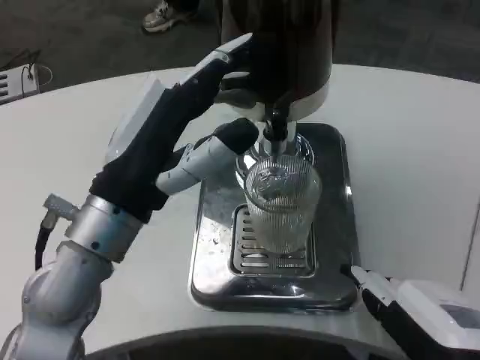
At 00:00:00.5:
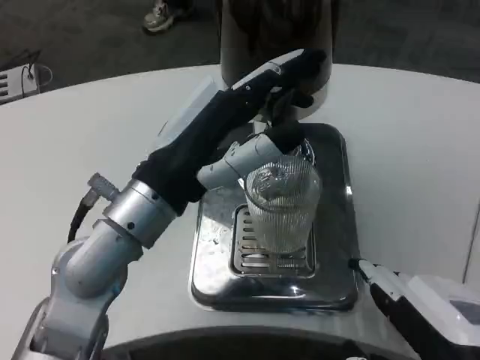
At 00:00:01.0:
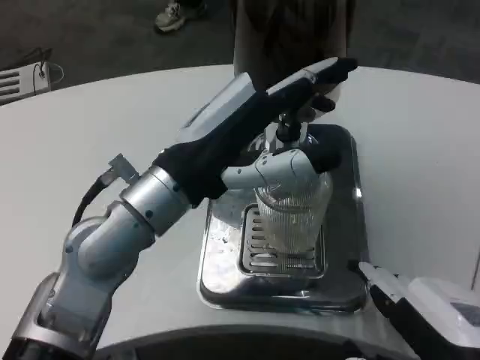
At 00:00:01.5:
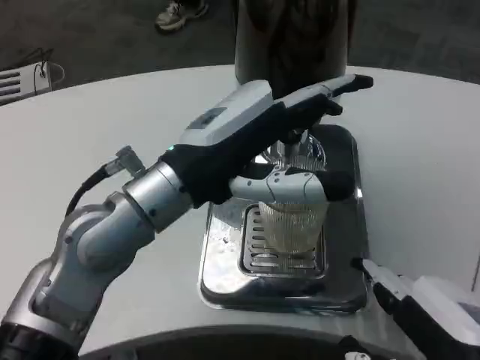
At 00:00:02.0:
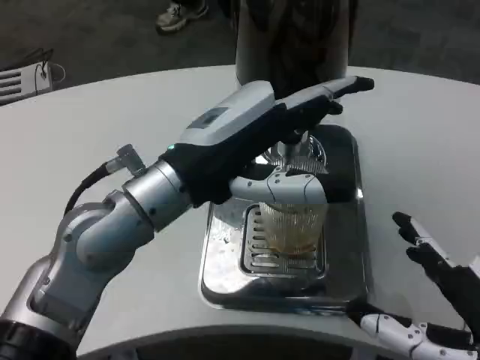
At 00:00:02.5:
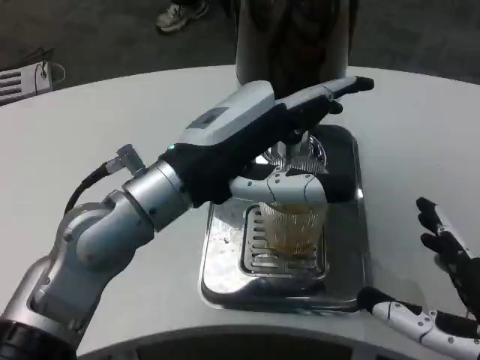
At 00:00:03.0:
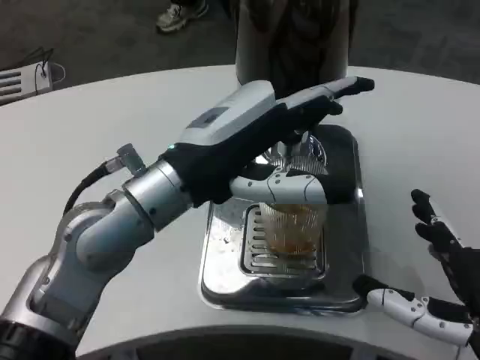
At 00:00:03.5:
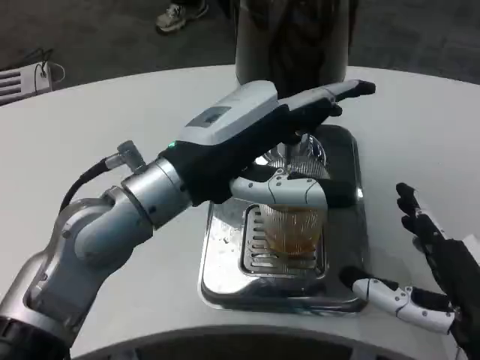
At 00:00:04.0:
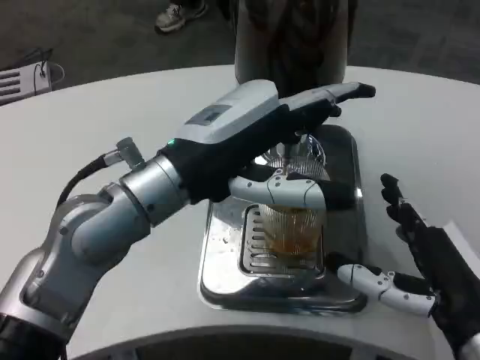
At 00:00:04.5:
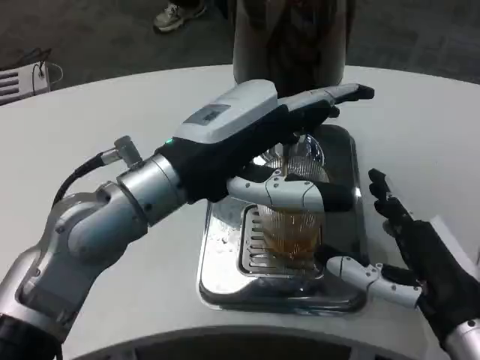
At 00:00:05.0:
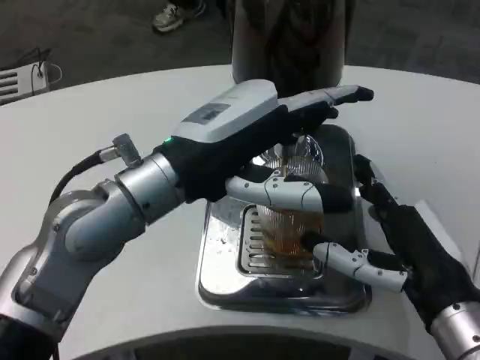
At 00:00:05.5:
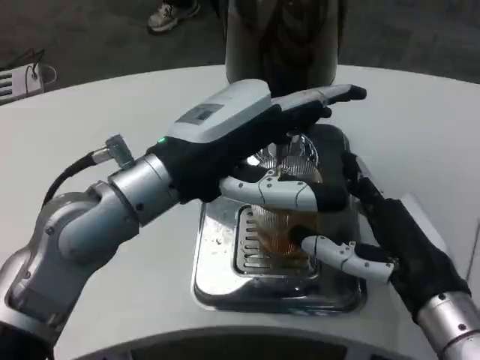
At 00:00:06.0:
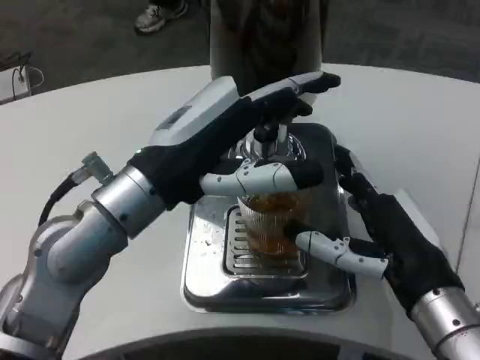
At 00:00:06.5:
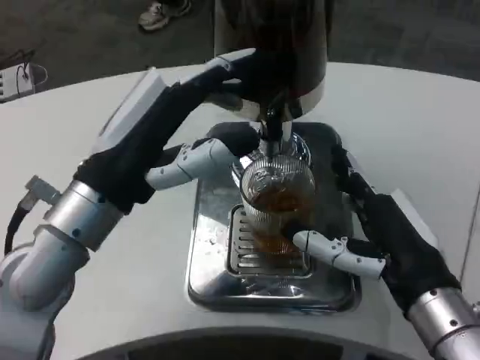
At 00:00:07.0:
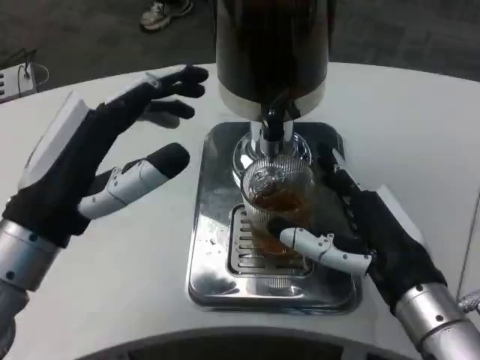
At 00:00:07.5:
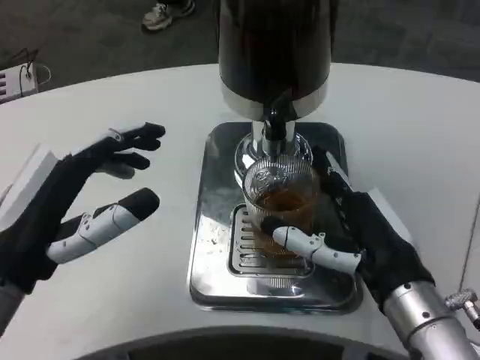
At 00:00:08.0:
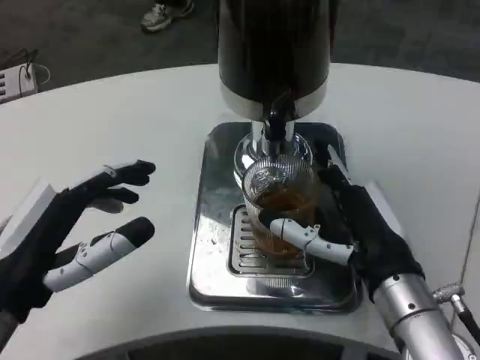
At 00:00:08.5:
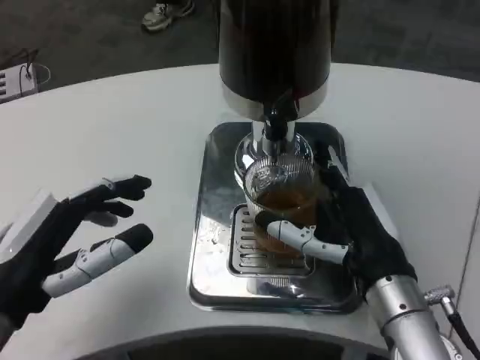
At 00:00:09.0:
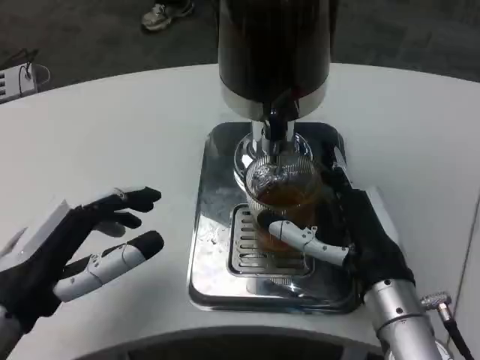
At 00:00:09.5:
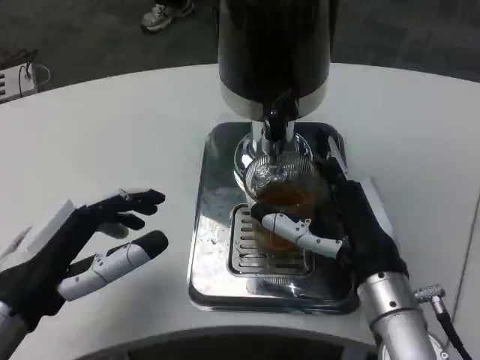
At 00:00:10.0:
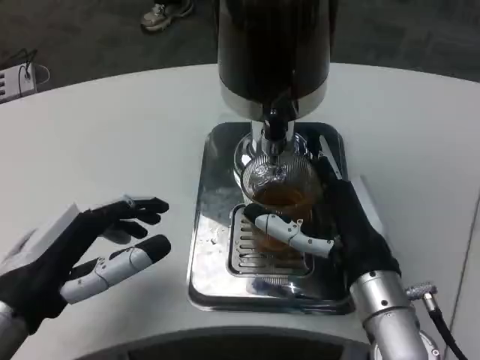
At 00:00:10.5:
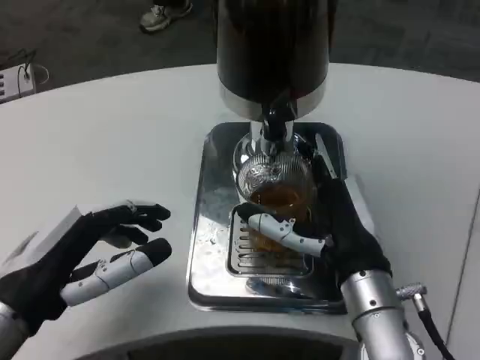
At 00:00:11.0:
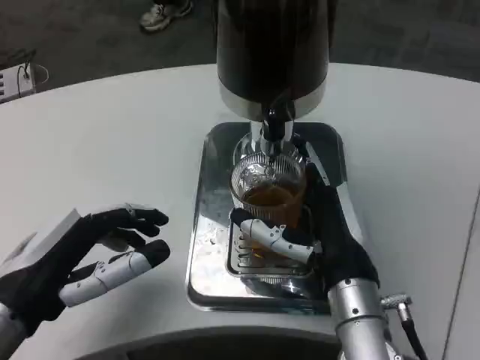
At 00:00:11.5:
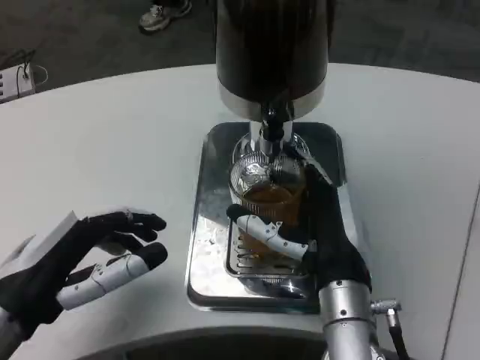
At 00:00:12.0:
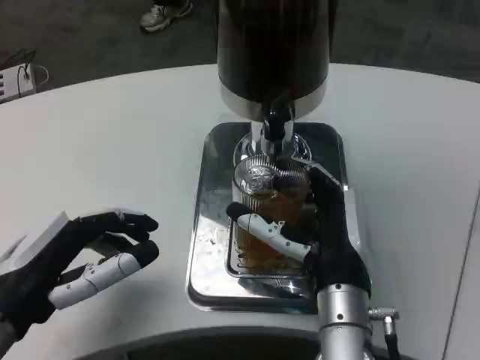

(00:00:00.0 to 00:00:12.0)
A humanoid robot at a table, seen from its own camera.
Task of the whole recording: Grasp the cup under the faucet to collect the drink, then remove the cup.
00:00:02.0 - 00:00:04.0: The right hand goes approximately 5 cm forward.
00:00:06.0 - 00:00:08.0: The left hand moves to the left, downward and backward, roughly 15 cm.
00:00:08.0 - 00:00:10.0: The hands move only a little.
00:00:10.0 - 00:00:12.0: The right hand changes place by approximately 5 cm.

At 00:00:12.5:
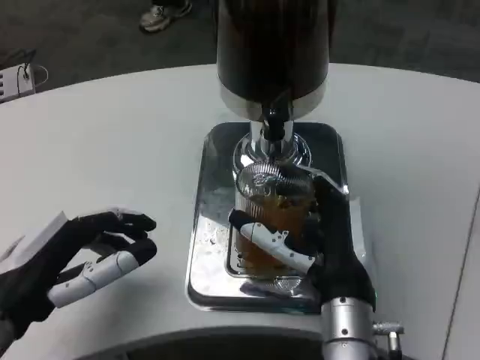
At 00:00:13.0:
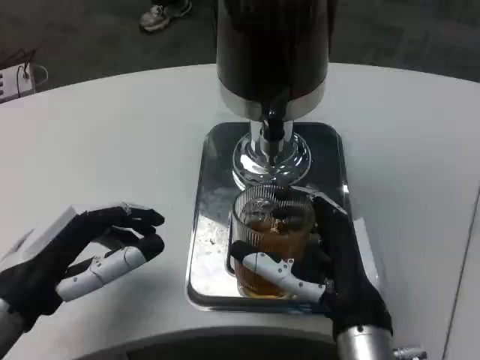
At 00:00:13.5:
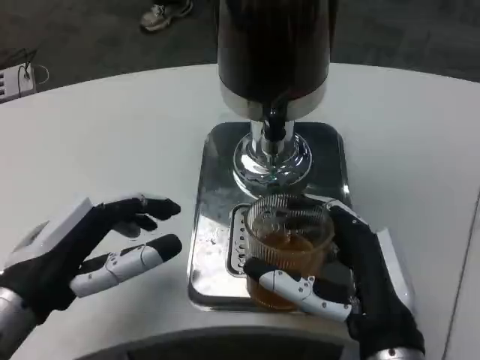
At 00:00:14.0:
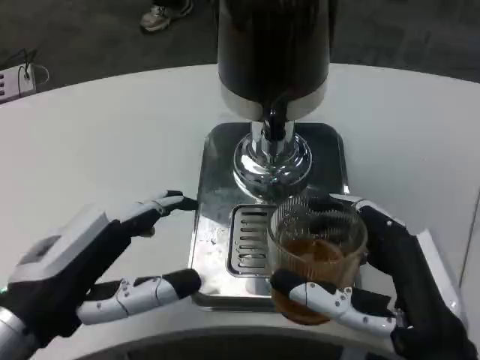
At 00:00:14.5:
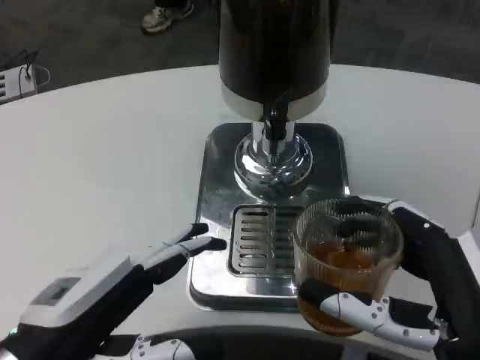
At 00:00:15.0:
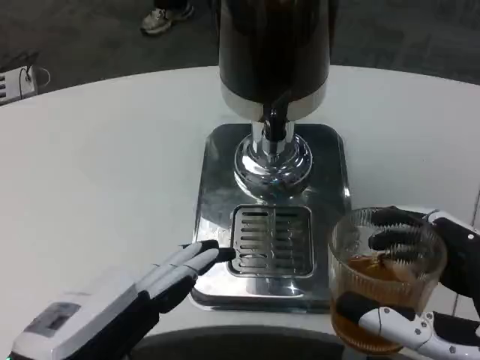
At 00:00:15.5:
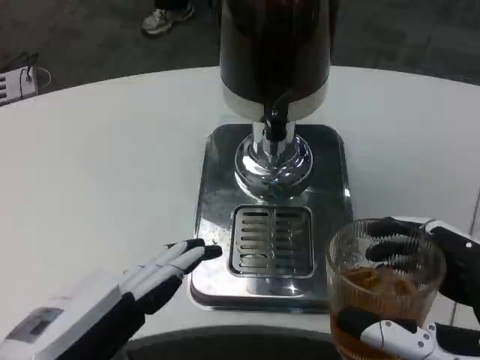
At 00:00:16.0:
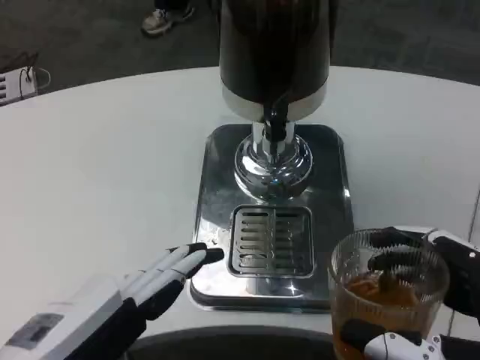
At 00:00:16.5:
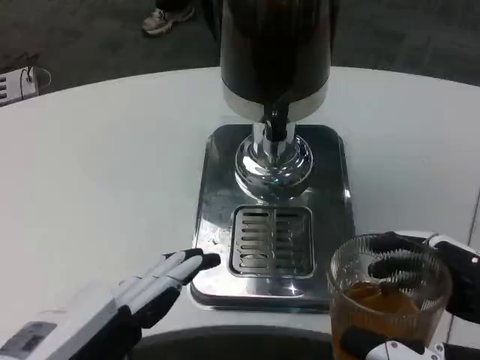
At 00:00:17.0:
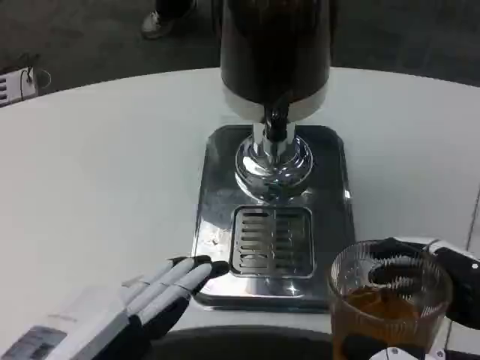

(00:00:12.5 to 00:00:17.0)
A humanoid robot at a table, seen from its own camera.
Task of the whole recording: Grasp the cup under the faucet to collect the drink, then remove the cup.
00:00:12.5 - 00:00:14.5: The left hand travels backward by roughly 5 cm. The right hand travels backward and to the right by approximately 15 cm.
00:00:14.5 - 00:00:17.0: Both hands move backward, roughly 5 cm.
